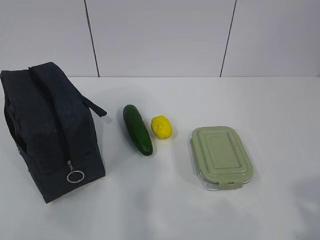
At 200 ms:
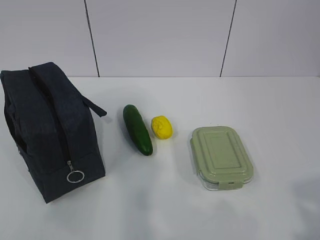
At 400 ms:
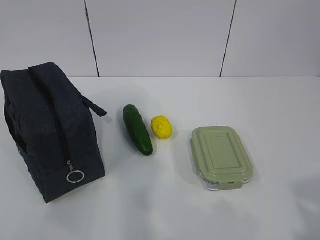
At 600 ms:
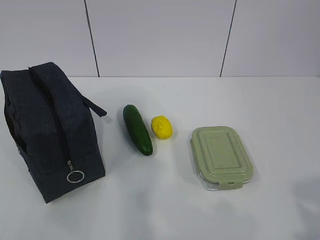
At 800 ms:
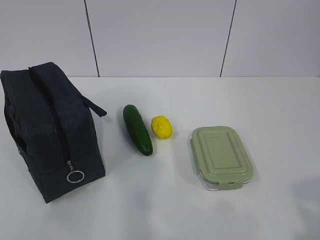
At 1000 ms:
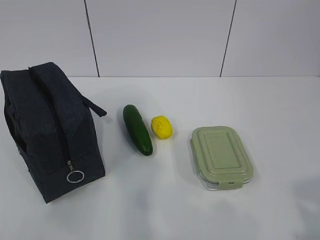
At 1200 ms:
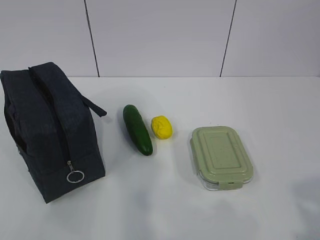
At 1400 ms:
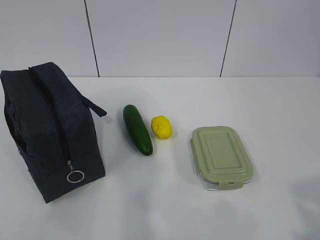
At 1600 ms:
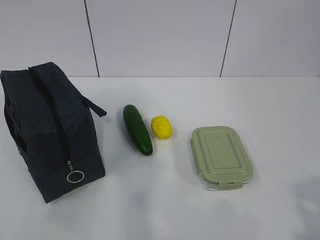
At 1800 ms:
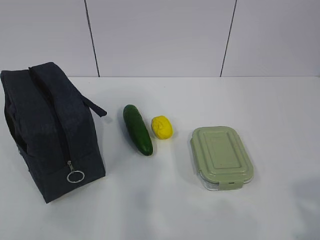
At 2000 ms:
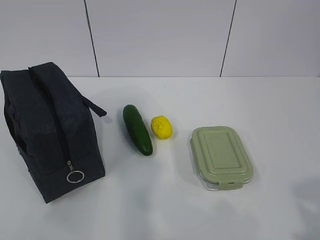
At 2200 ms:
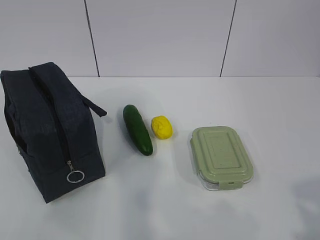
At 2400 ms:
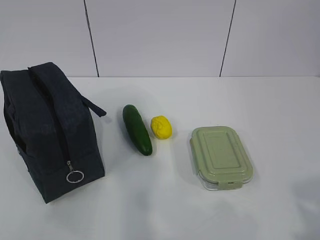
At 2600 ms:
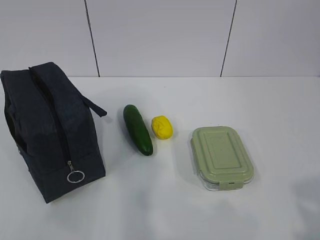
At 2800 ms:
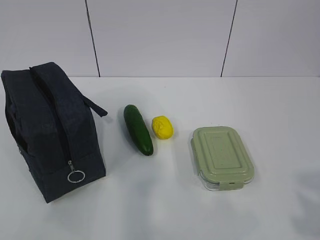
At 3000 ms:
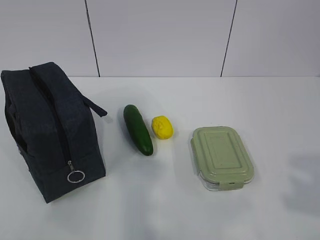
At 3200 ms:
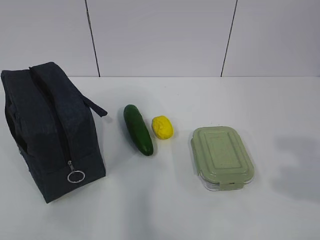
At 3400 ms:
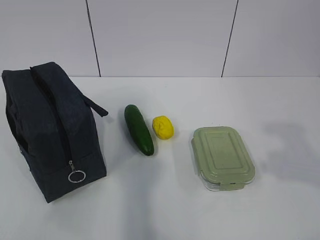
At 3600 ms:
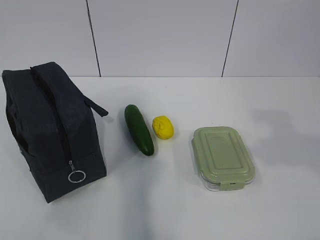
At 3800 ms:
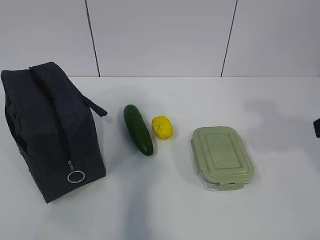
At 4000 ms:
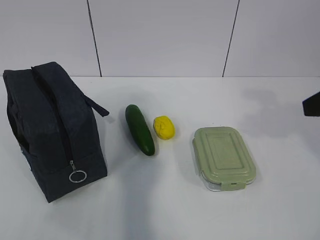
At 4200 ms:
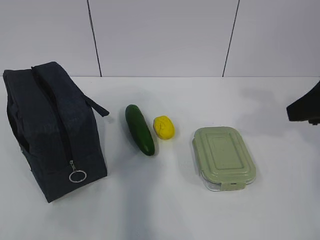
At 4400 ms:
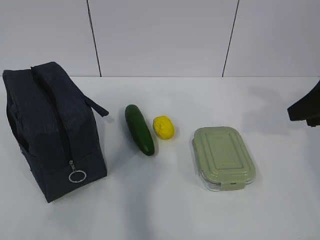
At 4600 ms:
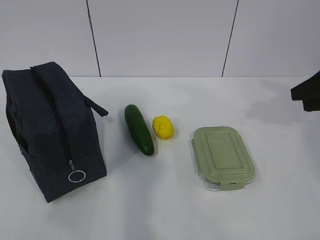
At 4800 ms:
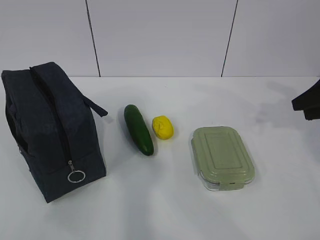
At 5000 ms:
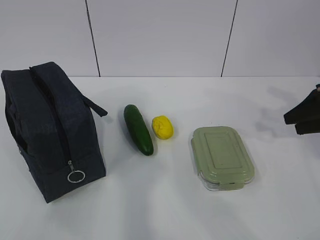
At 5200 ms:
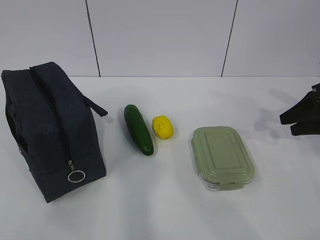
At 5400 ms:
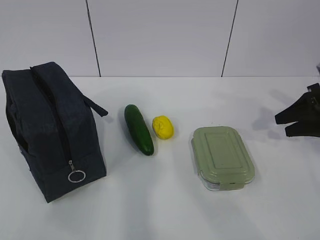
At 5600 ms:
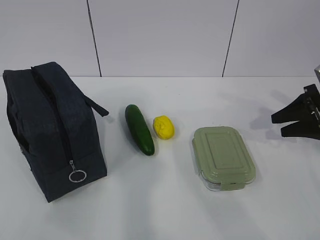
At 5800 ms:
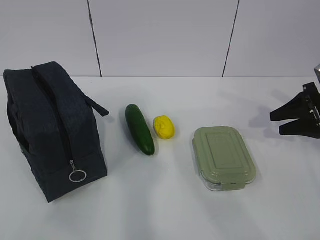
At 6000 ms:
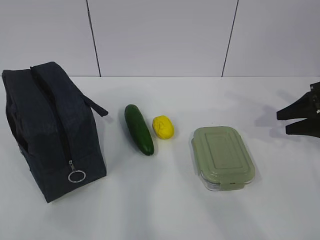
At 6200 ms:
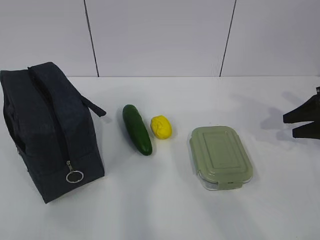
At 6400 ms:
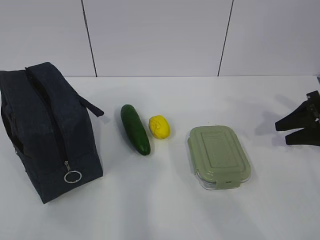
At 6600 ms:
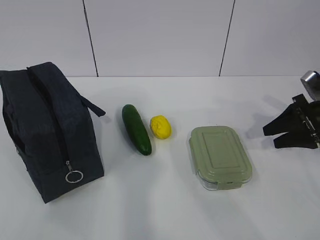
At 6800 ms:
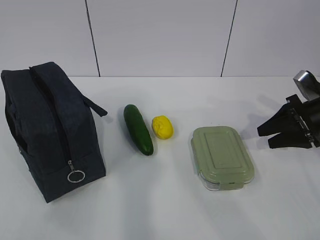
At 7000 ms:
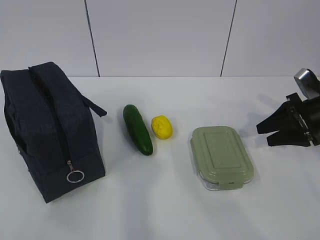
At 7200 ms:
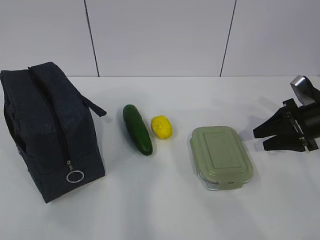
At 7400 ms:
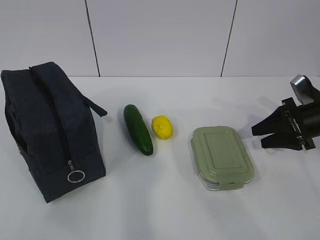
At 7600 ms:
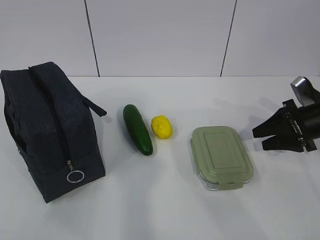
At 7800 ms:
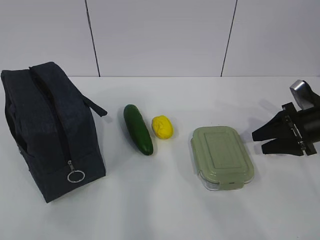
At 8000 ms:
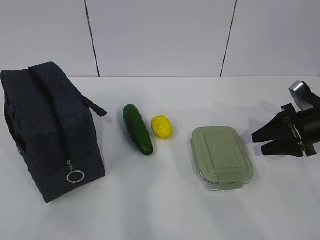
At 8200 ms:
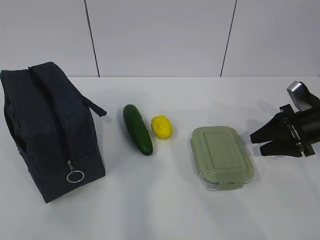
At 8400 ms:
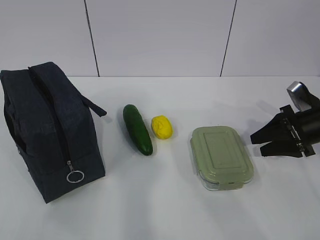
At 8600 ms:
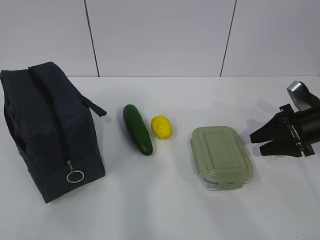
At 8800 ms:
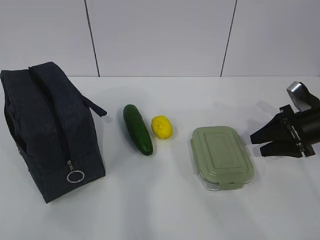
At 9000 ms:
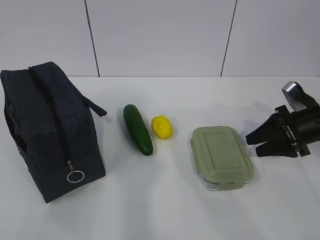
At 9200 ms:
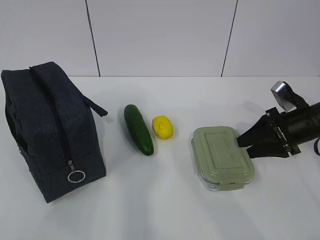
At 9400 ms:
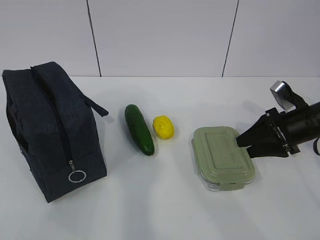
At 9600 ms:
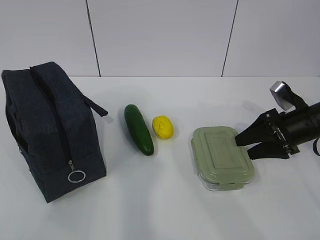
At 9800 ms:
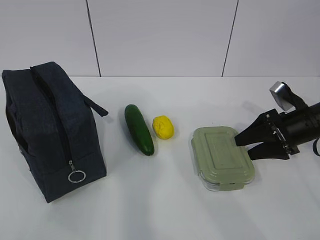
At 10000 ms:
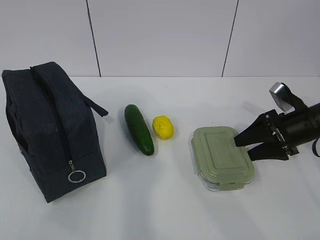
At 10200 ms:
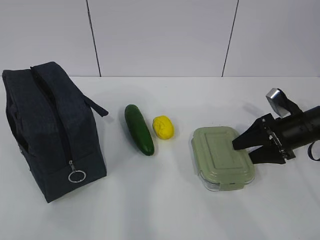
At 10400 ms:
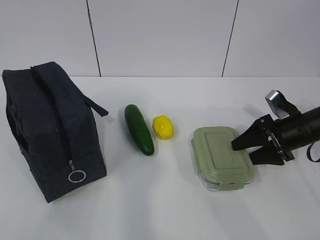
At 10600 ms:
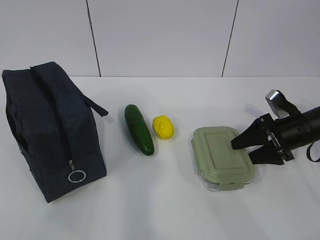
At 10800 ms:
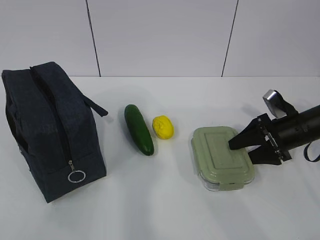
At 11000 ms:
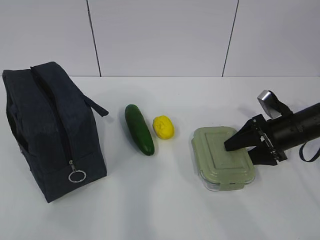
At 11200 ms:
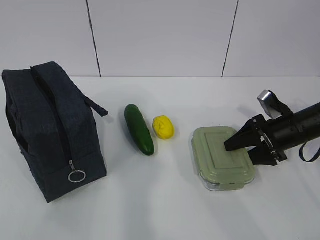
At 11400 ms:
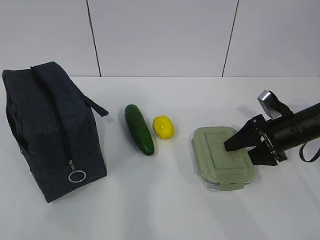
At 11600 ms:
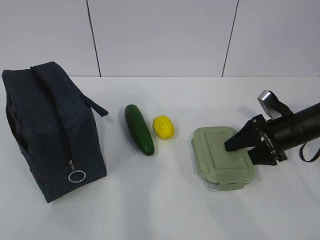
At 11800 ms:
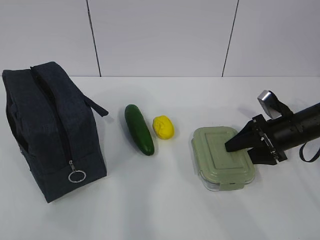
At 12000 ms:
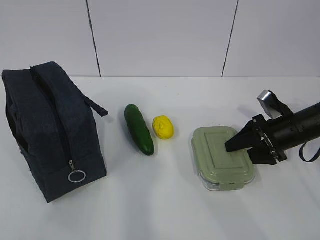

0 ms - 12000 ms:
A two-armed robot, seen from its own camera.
3000 ms - 4400 ms: The right gripper moves forward, some 25 cm.
4400 ms - 6000 ms: The right gripper shifts about 15 cm downward, forward and to the right.
6000 ms - 7600 ms: The right gripper ends up about 5 cm from where it was.
7600 ms - 12000 ms: The grippers move only a little.

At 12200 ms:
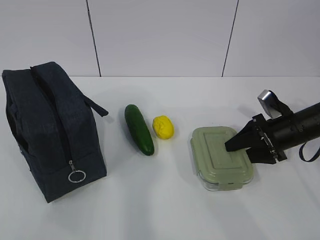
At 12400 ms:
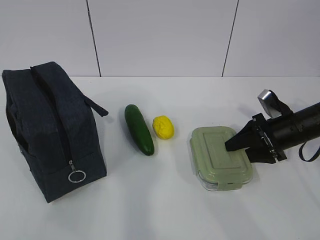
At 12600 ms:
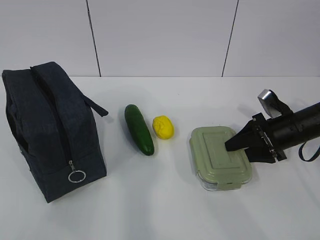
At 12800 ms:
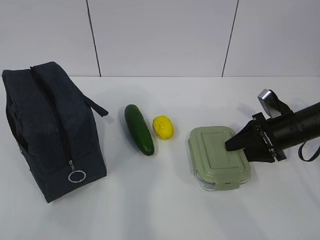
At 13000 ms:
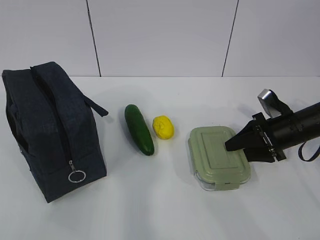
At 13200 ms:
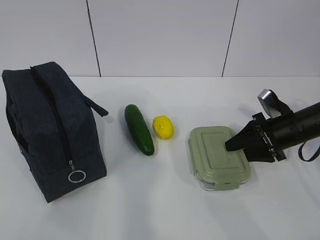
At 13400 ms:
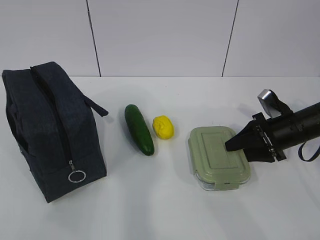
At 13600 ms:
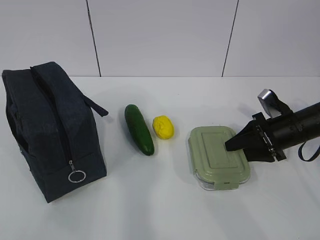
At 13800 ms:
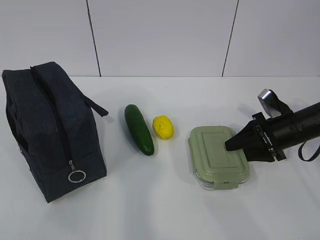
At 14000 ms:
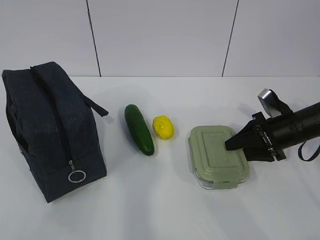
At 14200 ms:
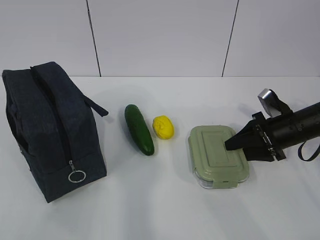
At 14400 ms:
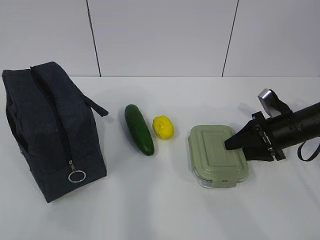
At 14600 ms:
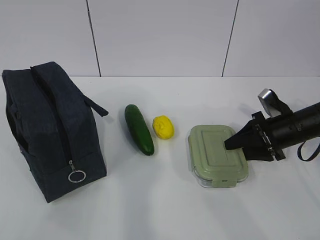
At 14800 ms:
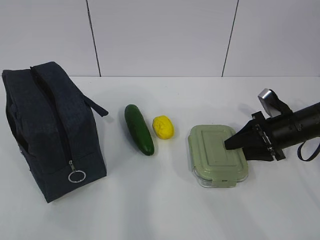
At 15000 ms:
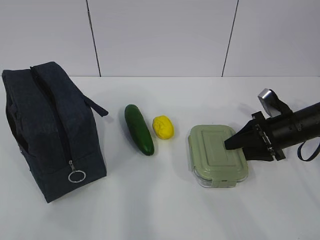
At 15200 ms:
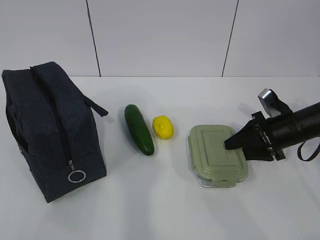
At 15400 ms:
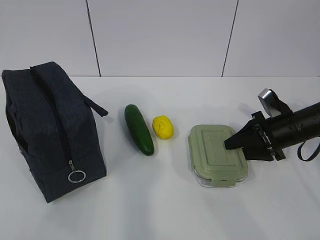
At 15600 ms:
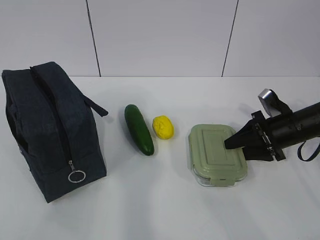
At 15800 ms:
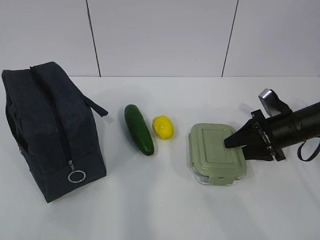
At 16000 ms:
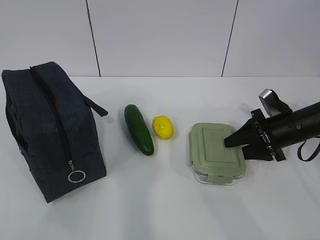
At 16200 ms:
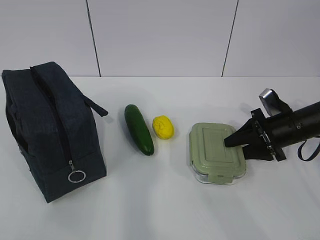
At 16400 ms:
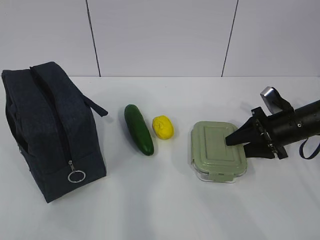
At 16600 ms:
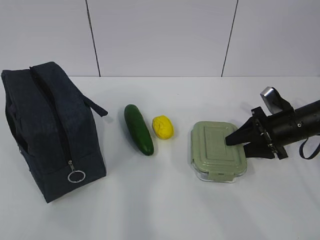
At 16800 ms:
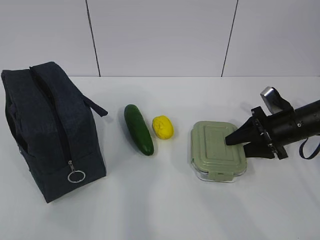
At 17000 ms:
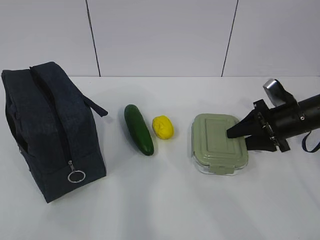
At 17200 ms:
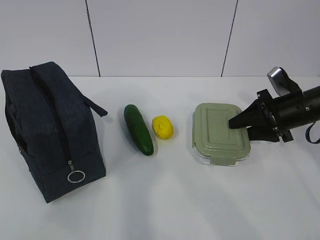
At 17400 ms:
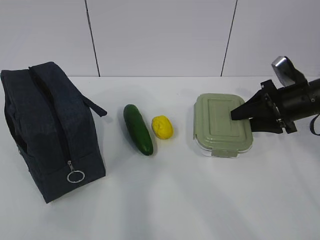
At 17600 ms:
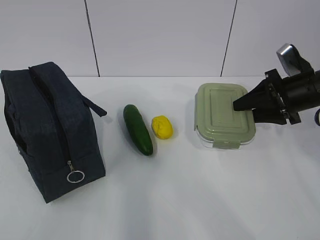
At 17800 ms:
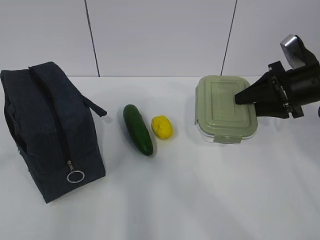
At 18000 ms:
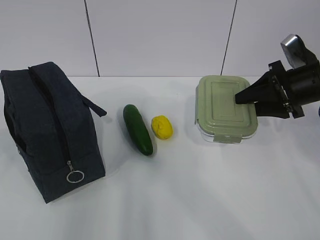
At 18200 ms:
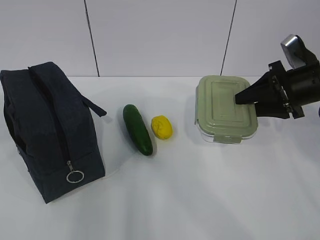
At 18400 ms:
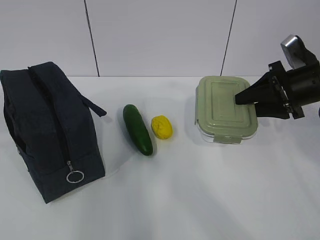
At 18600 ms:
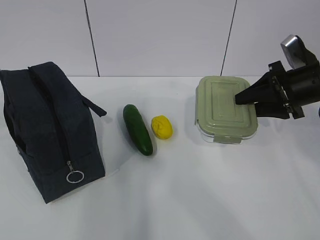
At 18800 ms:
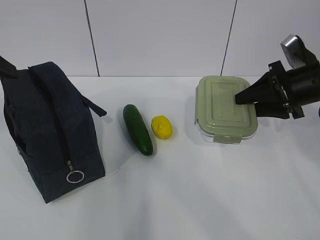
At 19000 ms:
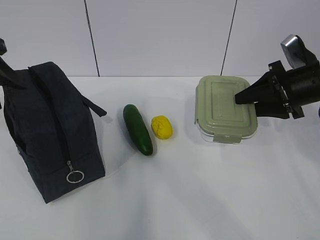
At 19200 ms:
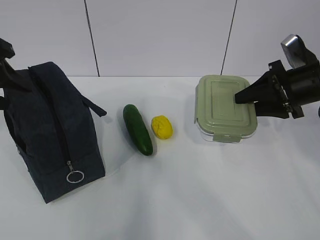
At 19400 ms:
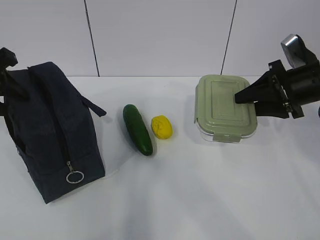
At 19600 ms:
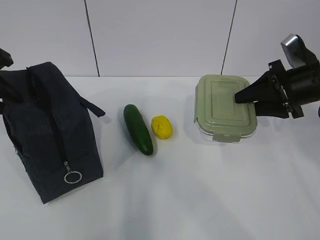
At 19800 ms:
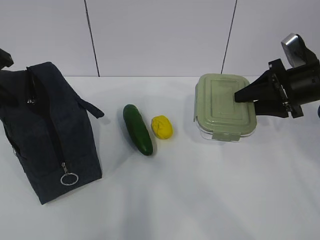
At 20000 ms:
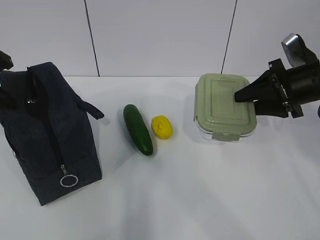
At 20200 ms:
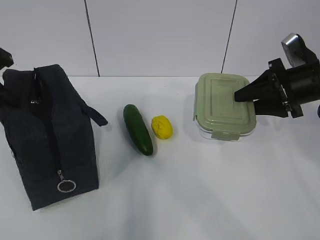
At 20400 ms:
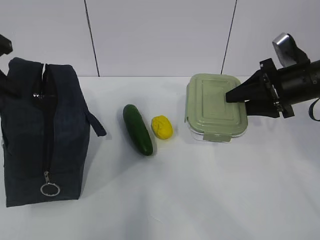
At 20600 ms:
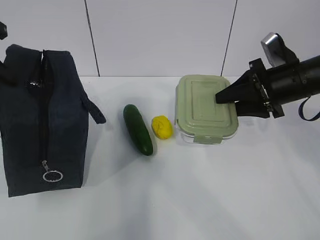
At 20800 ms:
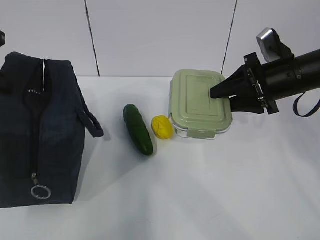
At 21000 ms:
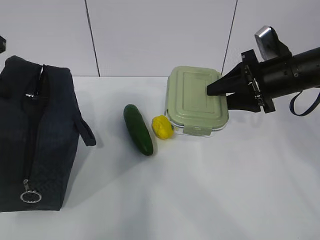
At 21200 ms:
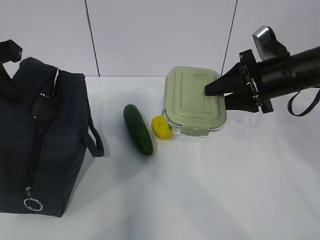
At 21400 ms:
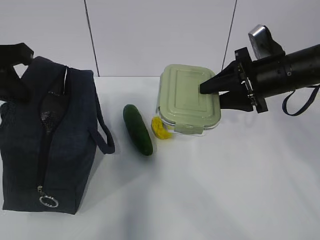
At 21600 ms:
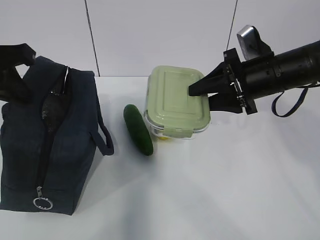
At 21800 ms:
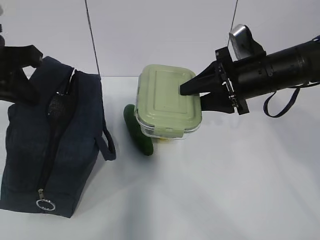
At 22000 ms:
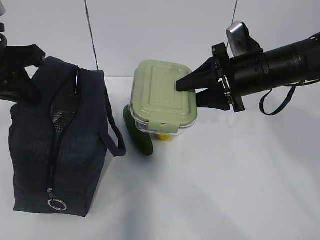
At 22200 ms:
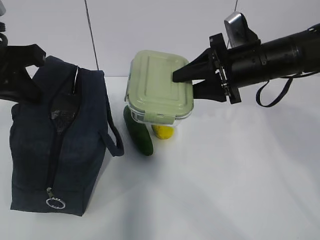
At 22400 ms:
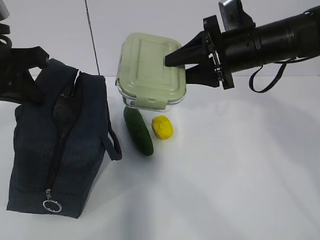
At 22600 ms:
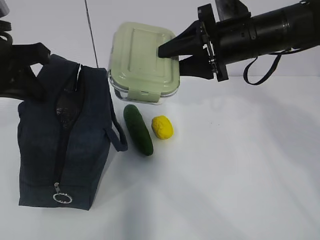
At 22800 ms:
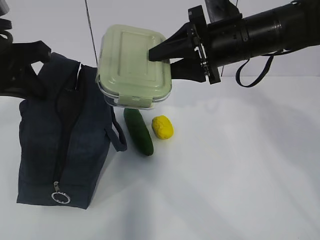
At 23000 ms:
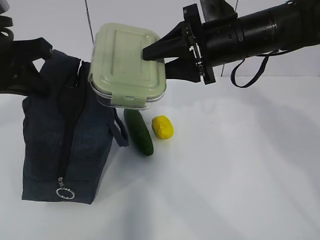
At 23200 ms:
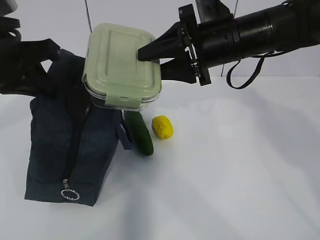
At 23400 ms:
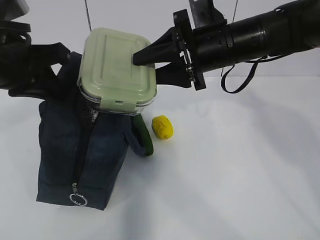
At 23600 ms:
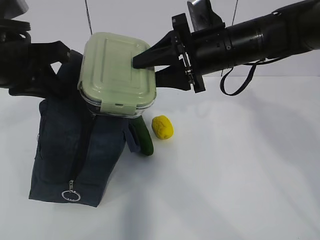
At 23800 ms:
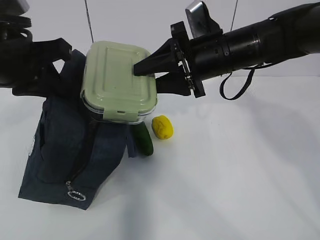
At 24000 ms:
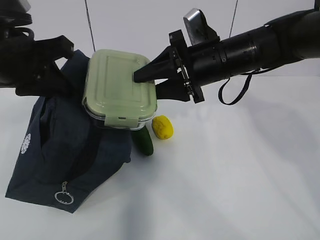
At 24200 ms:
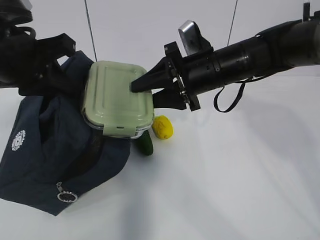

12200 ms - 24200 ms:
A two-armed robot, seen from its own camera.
Step, 12800 ms - 19600 ms: Grab the lunch bag with your left hand.
Step, 19800 ms - 23400 ms: Place it into the bag with your right hand.
12200 ms - 15200 ms: The two grippers keep their place.
15200 ms - 16600 ms: There are only small adjustments of the grippers.
16600 ms - 18200 ms: The right gripper heads upward, covering some 10 cm, while the left gripper is displaced forward by some 15 cm.
18200 ms - 19800 ms: The left gripper goes about 15 cm forward and downward, and closes.
19800 ms - 21200 ms: The right gripper goes some 5 cm to the left. Meanwhile the left gripper changes place by roughly 5 cm.
21200 ms - 22600 ms: The right gripper travels to the left and upward by roughly 10 cm.
22600 ms - 24200 ms: The right gripper shifts by about 5 cm.
